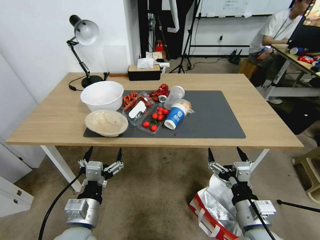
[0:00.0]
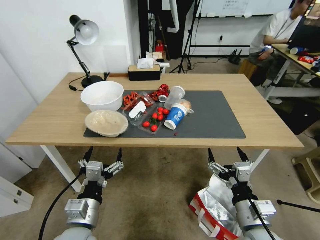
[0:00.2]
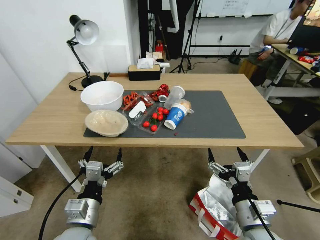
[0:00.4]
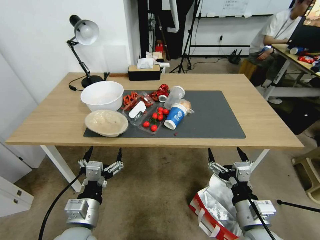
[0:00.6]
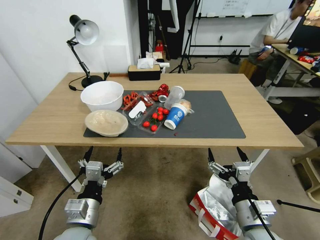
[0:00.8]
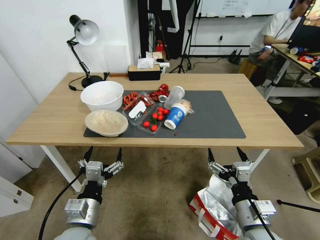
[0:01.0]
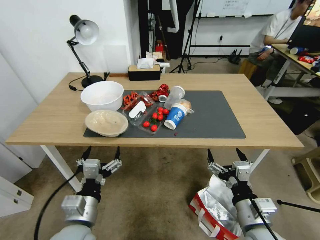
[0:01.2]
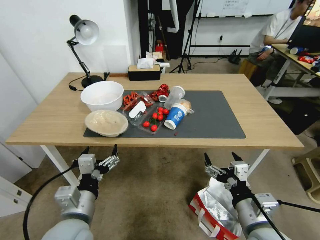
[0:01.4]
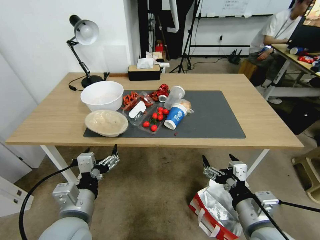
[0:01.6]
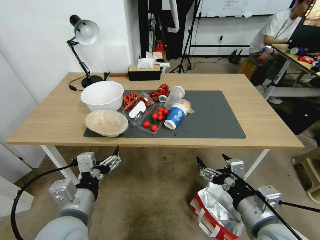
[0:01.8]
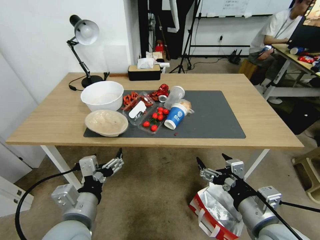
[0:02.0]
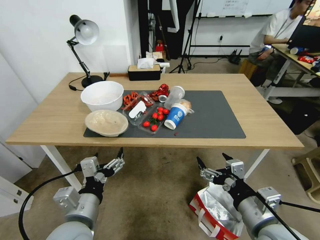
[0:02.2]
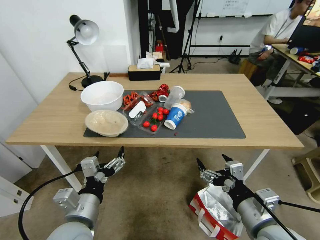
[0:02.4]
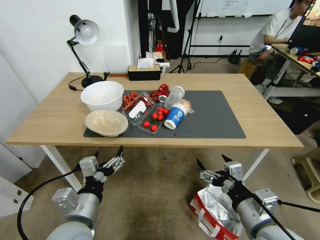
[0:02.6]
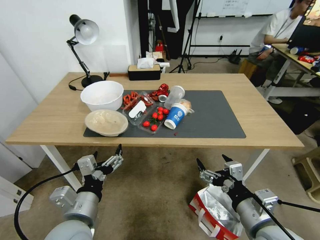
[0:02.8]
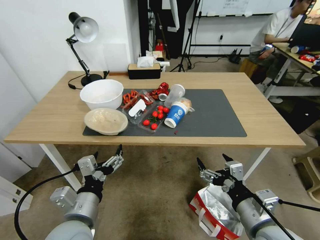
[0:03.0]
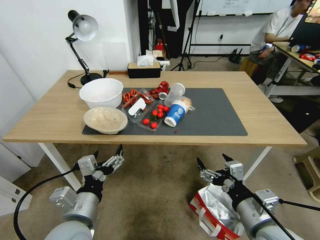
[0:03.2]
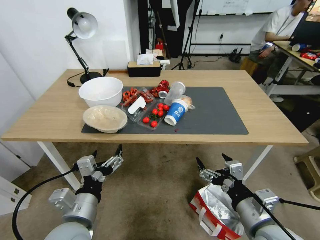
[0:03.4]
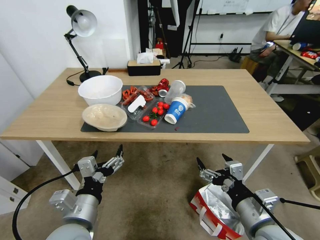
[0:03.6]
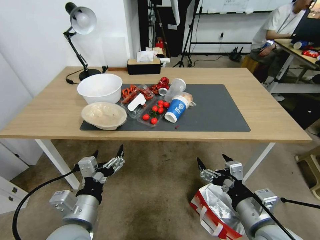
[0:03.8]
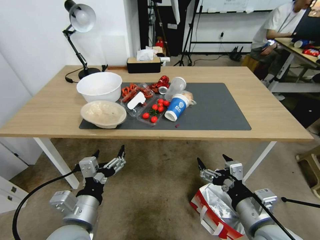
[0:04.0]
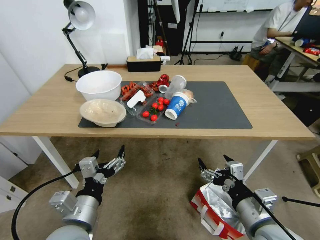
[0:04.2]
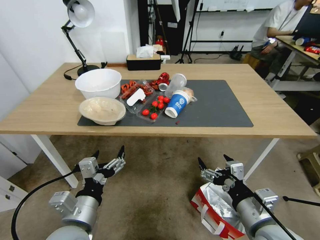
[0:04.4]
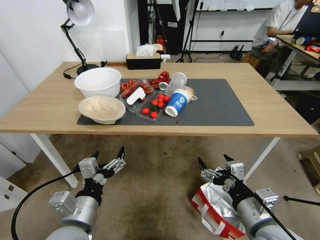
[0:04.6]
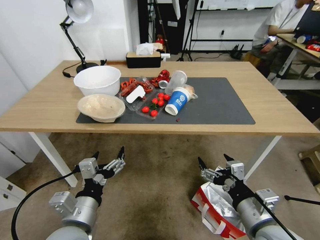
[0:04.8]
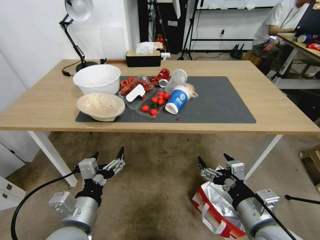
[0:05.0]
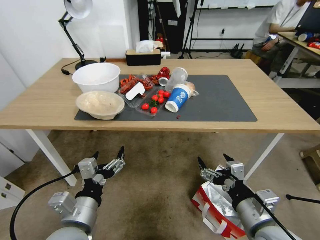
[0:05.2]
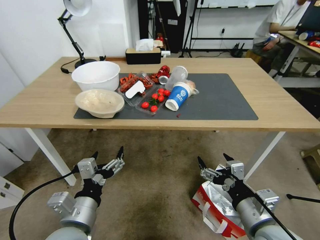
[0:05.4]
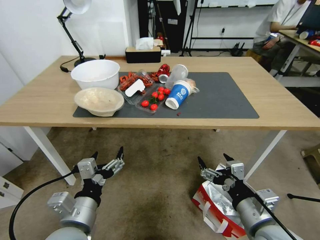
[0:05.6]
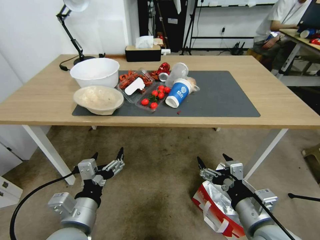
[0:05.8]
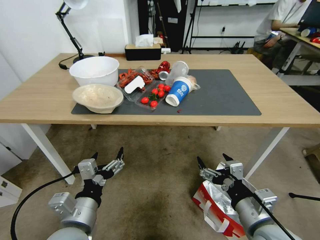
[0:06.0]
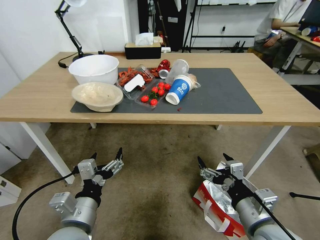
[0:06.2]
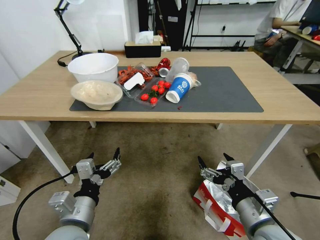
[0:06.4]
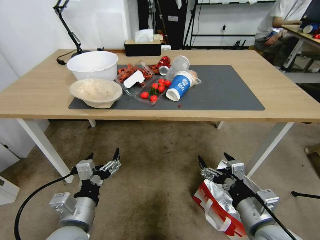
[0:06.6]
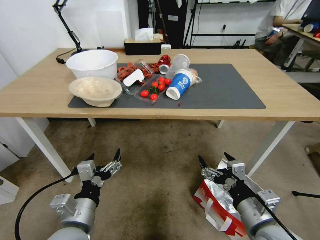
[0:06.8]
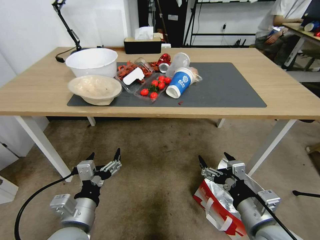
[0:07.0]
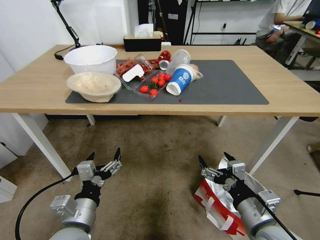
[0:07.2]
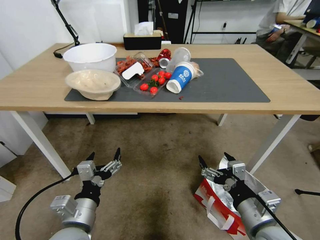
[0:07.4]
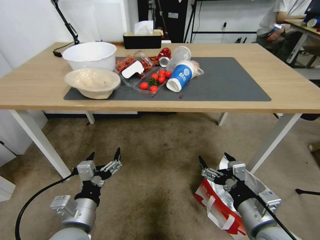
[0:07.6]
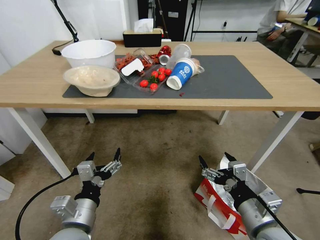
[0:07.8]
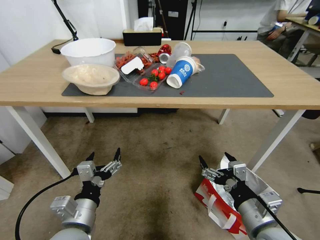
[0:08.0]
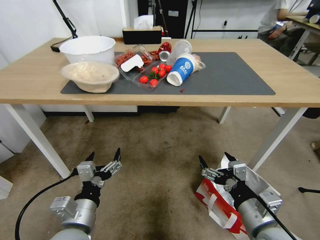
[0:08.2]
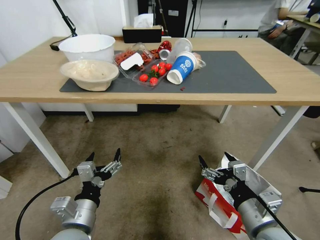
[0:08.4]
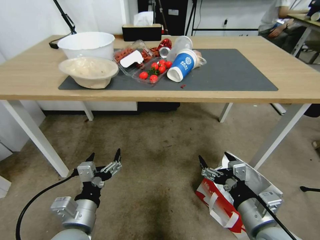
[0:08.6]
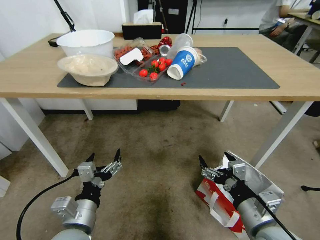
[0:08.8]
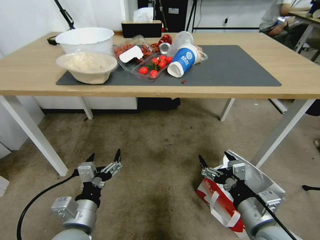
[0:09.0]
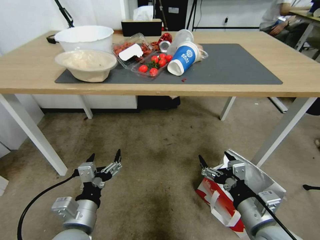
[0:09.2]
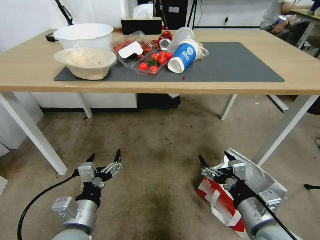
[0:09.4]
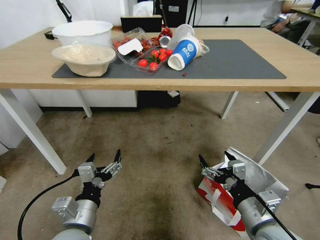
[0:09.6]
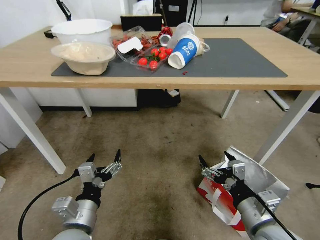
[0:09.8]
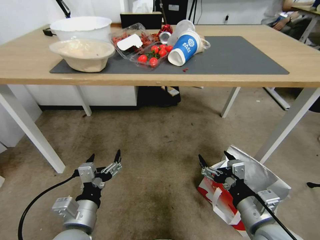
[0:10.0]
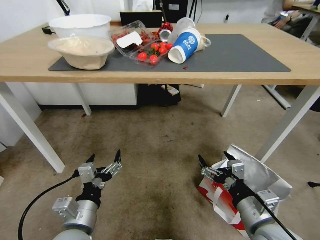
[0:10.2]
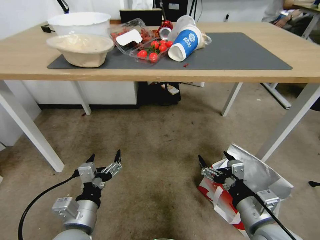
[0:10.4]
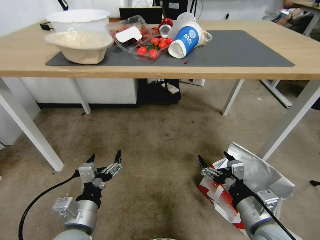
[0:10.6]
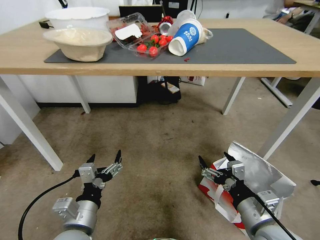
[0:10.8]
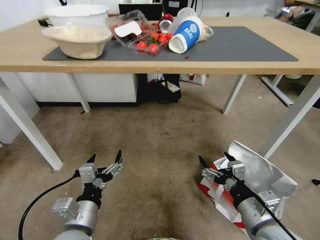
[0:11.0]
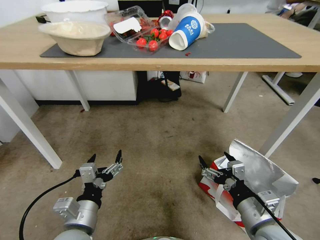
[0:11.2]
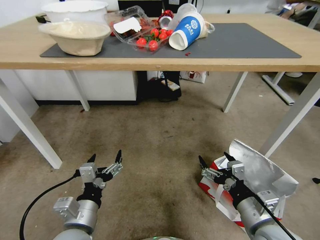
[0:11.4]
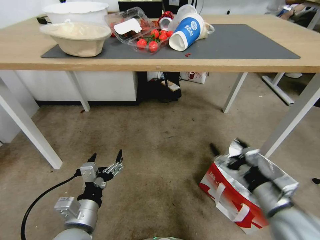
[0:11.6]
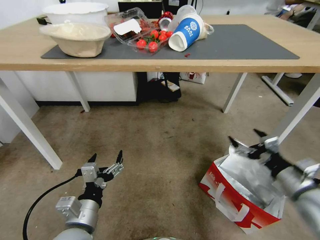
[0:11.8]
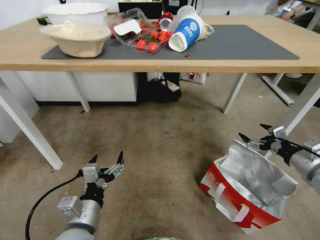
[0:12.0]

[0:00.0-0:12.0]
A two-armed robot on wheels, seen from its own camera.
Task of the whole recording: Pick up the food delivery bag from the floor and place it on the table.
0:01.6 to 0:03.0: The grippers move only a little.
0:10.4 to 0:12.0: The right gripper heads to the right and forward, covering roughly 25 cm.

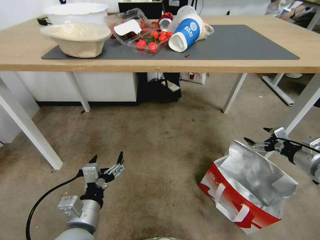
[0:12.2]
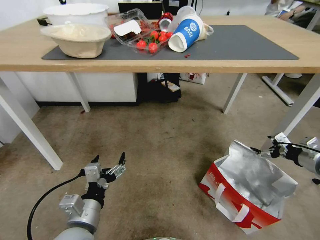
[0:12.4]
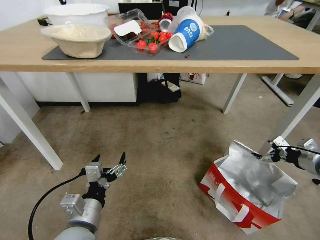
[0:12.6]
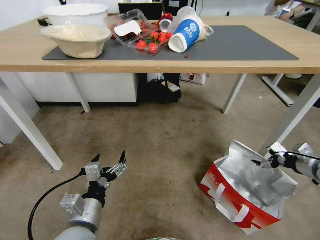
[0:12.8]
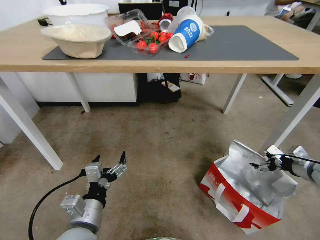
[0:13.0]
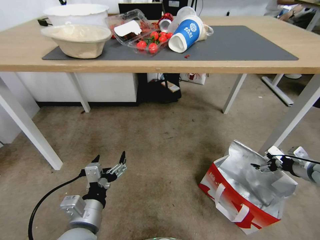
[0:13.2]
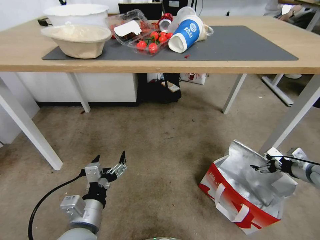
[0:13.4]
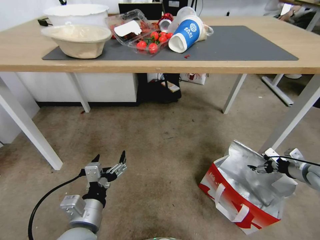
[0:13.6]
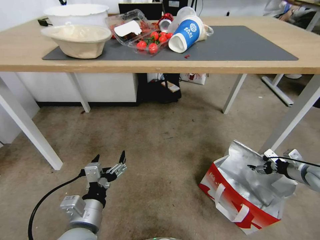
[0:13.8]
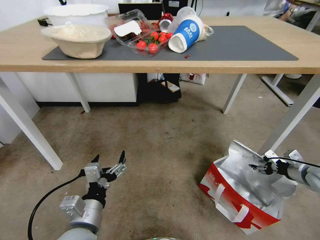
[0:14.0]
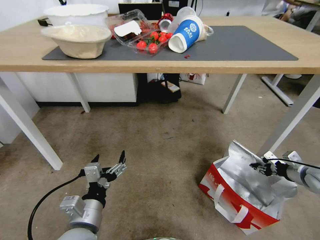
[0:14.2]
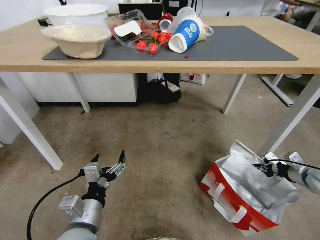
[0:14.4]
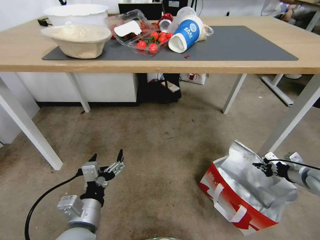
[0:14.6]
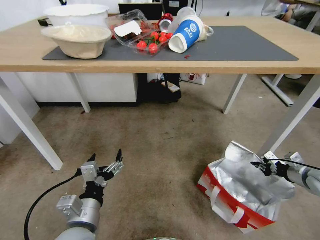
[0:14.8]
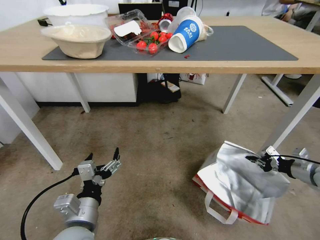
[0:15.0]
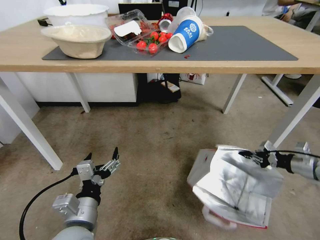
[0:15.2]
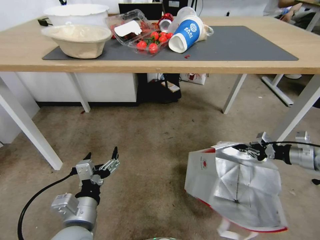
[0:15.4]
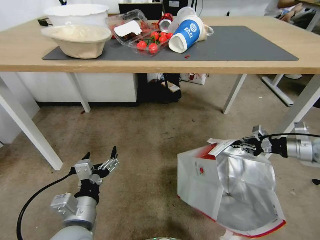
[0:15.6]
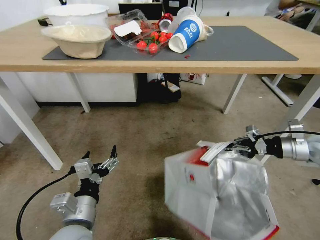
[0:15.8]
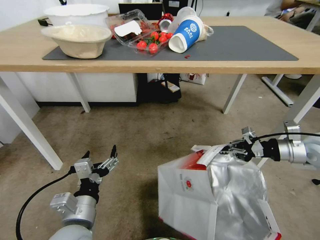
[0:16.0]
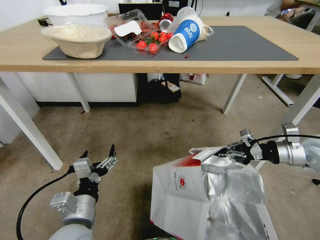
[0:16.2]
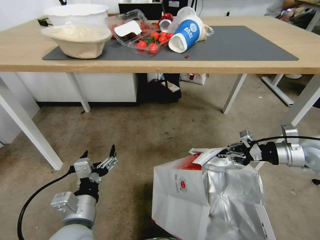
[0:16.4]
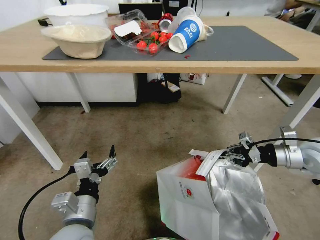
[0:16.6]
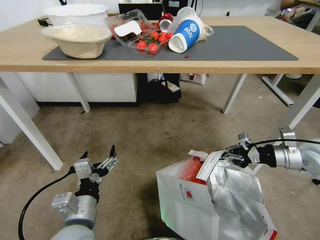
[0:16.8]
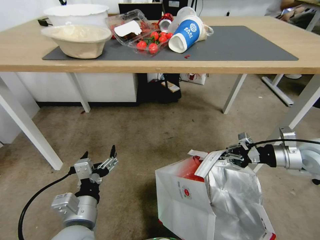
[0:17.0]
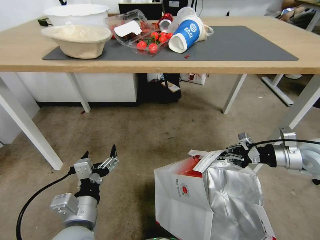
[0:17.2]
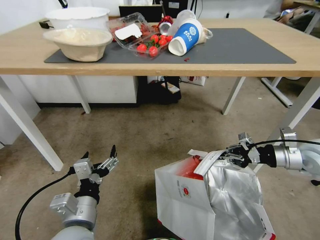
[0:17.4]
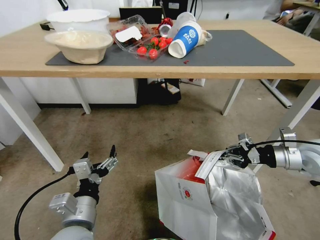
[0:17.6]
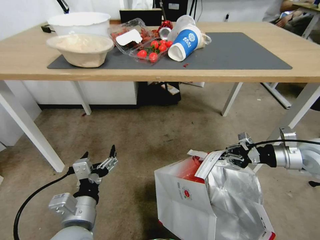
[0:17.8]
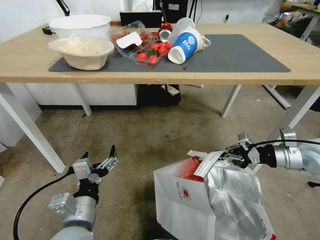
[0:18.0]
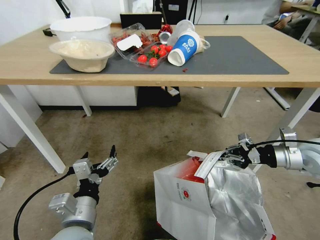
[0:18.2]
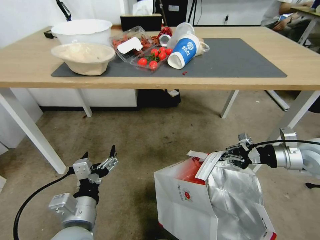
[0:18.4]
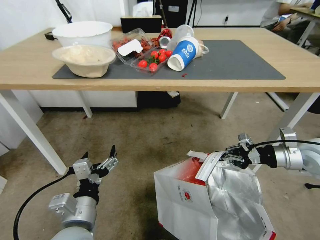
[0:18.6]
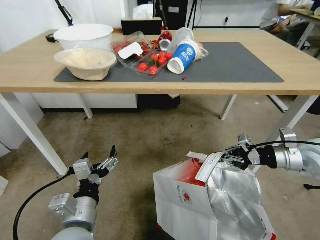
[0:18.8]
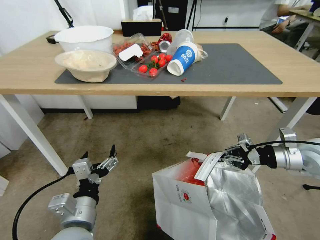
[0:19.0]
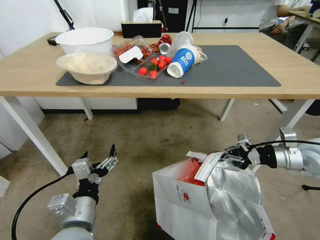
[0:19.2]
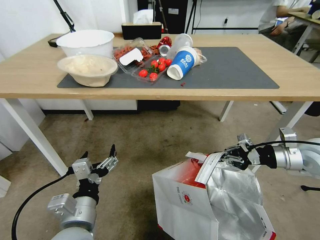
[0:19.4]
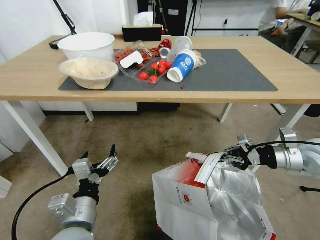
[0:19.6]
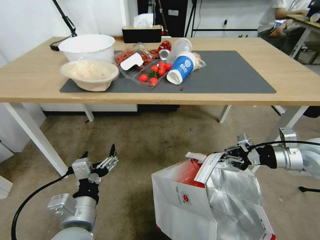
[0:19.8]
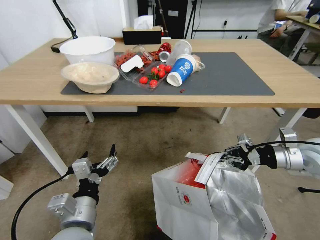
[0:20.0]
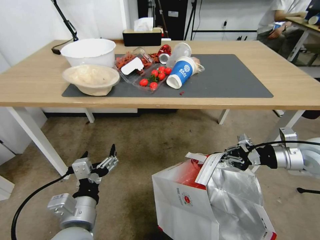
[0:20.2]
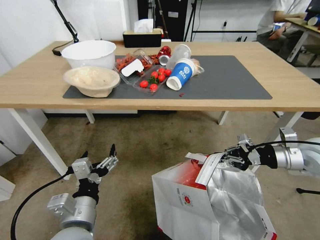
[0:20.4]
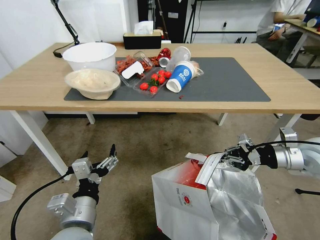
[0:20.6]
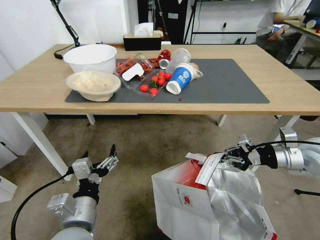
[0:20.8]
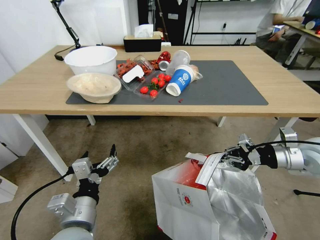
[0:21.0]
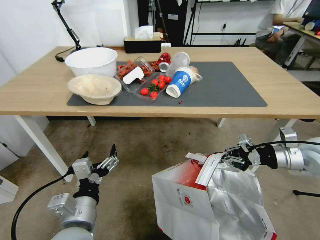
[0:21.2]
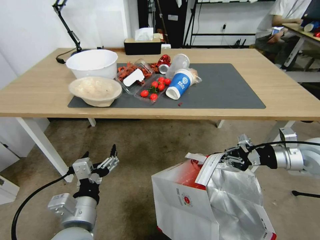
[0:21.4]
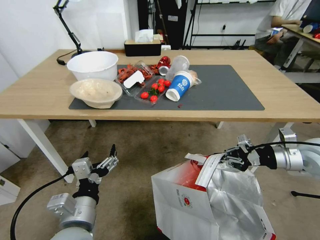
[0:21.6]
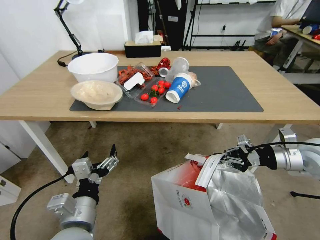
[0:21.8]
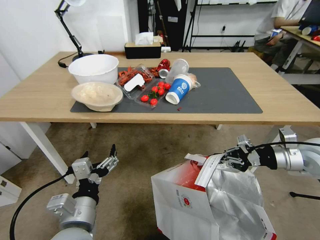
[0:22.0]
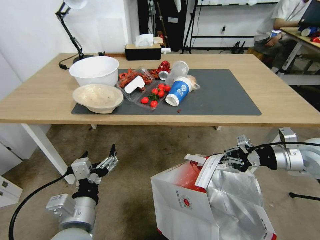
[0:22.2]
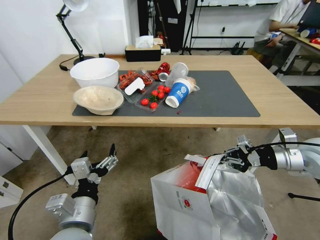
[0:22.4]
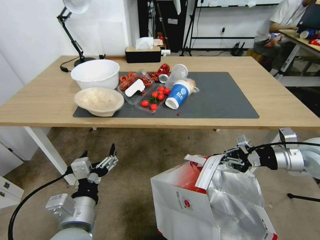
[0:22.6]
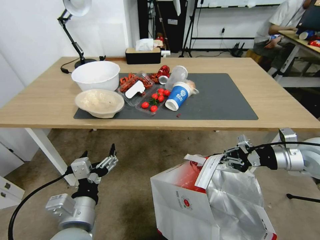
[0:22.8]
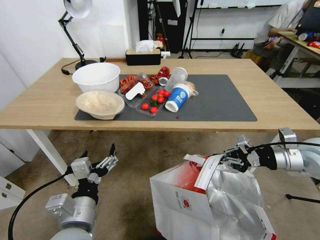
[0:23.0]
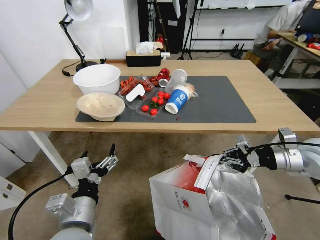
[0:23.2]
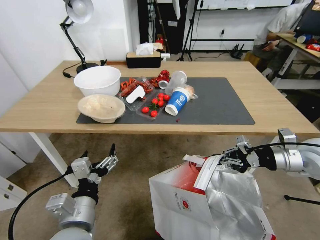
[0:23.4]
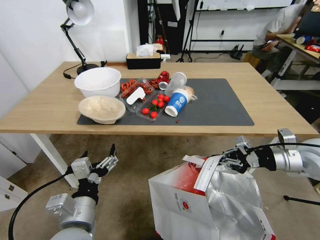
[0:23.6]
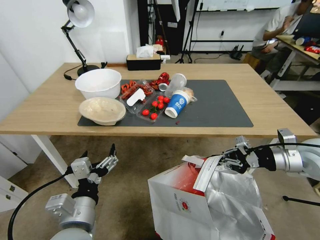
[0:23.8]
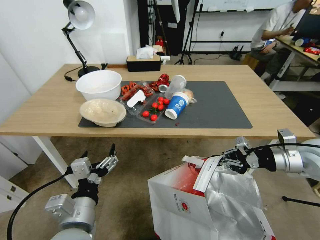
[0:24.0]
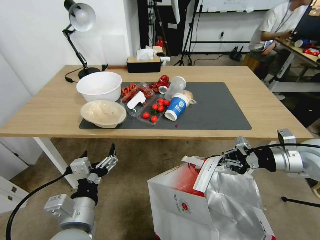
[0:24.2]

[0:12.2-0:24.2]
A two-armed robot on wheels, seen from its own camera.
Task of the whole recording: Pick up the food delivery bag from the floor and place it on the table.
0:12.2 to 0:13.8: The right gripper travels downward by approximately 5 cm.
0:13.8 to 0:15.2: The right gripper closes its fingers.
0:15.2 to 0:16.6: The right gripper is displaced to the left and upward by about 10 cm.
